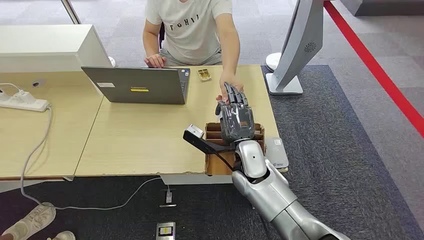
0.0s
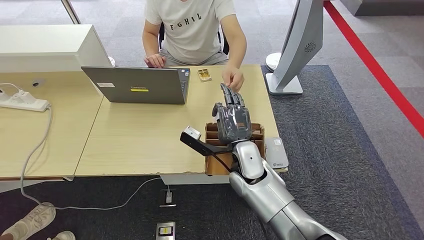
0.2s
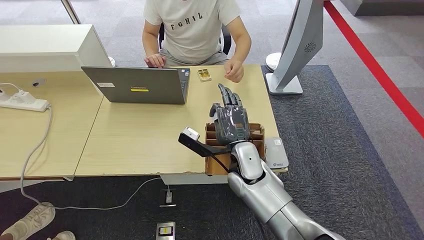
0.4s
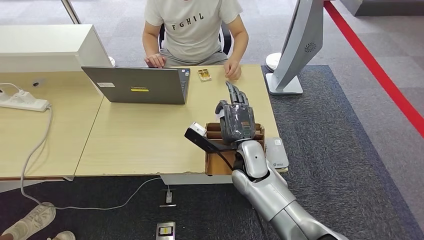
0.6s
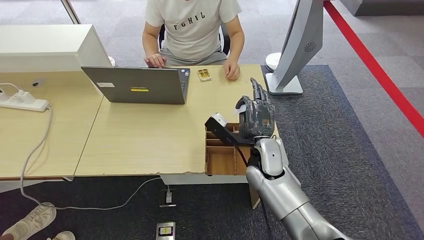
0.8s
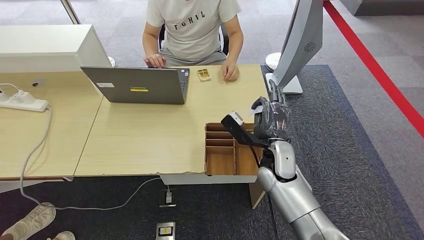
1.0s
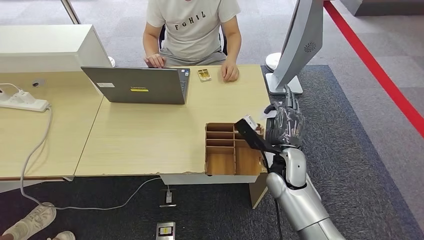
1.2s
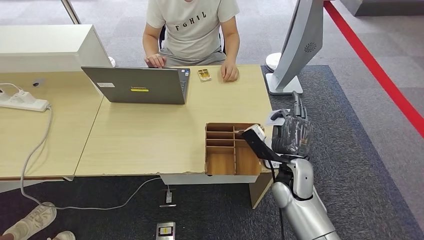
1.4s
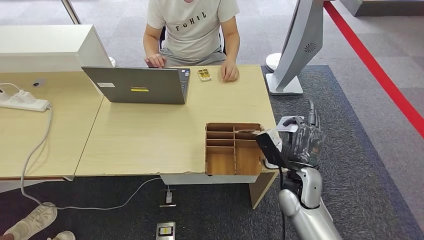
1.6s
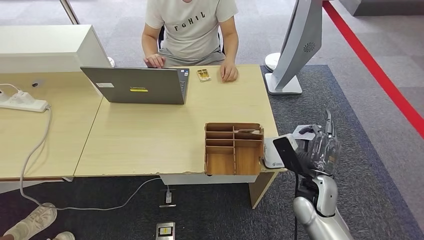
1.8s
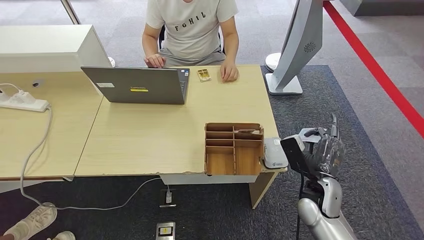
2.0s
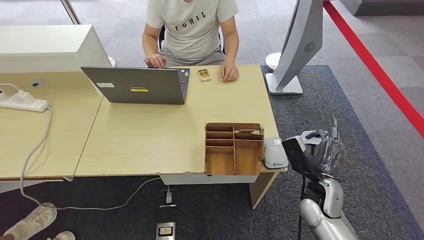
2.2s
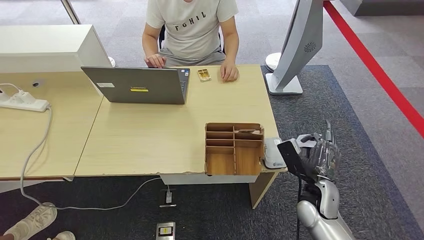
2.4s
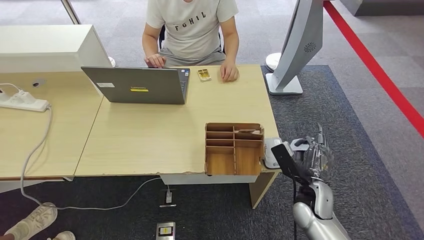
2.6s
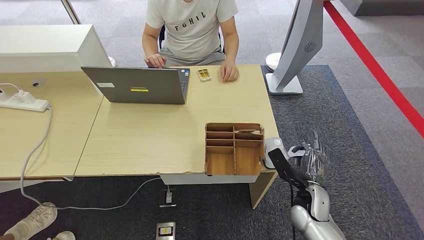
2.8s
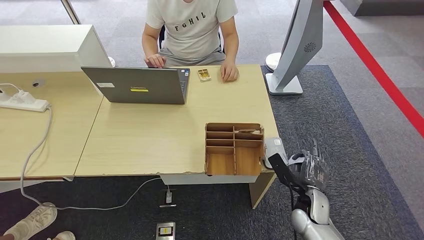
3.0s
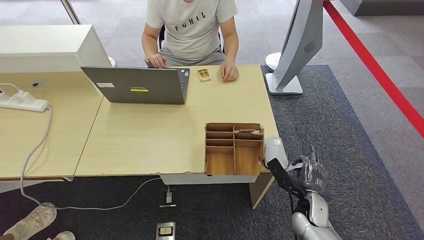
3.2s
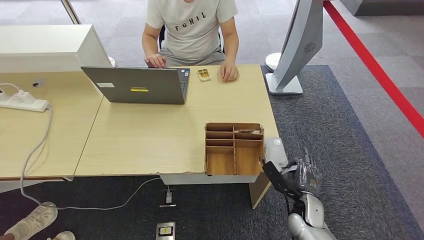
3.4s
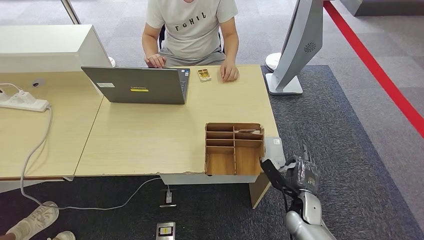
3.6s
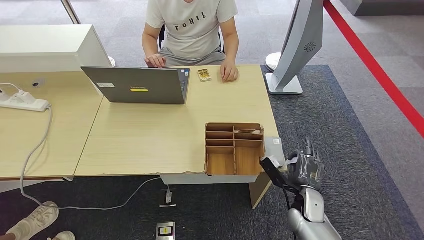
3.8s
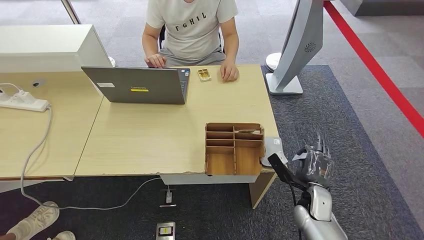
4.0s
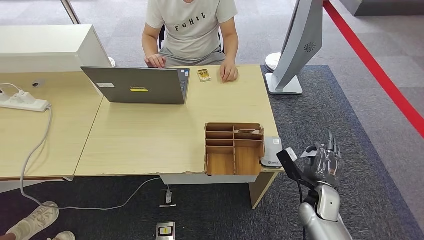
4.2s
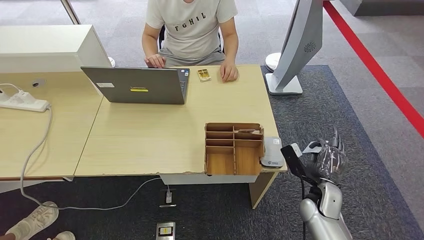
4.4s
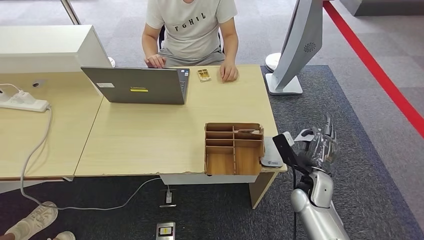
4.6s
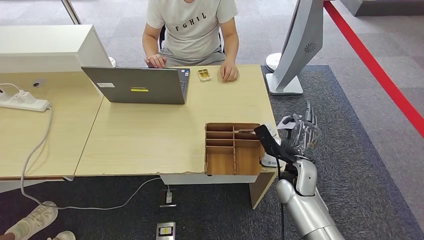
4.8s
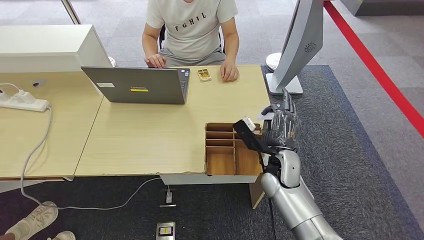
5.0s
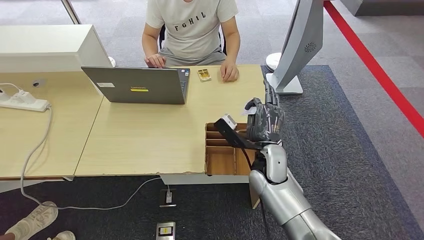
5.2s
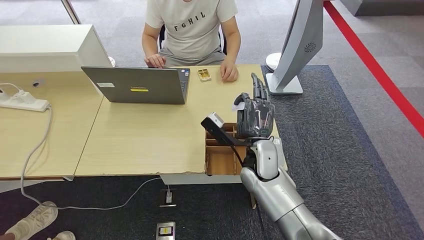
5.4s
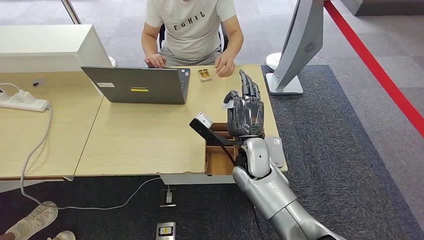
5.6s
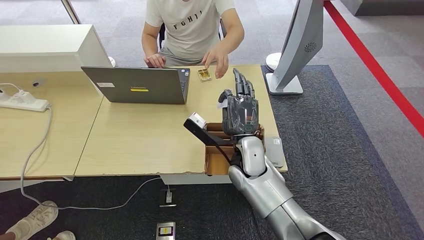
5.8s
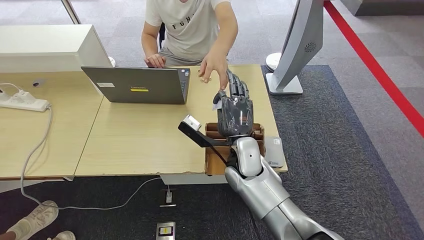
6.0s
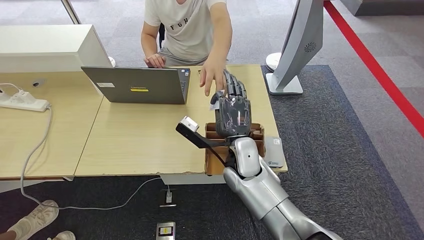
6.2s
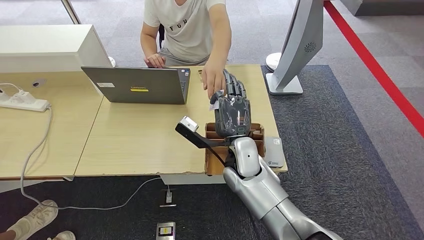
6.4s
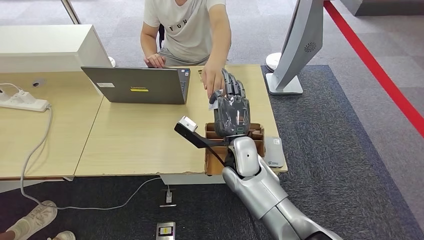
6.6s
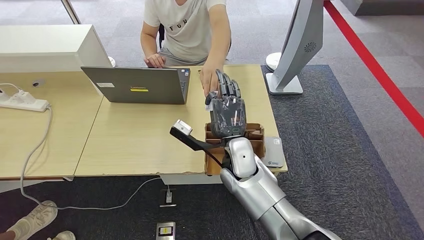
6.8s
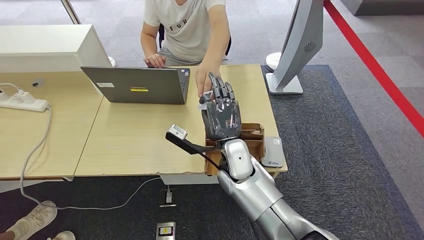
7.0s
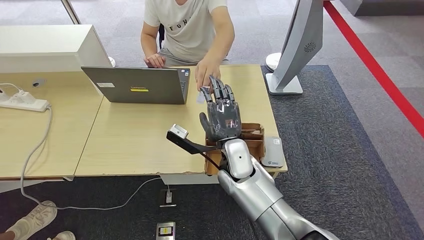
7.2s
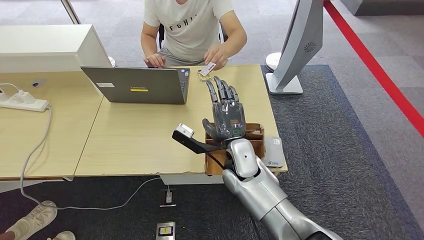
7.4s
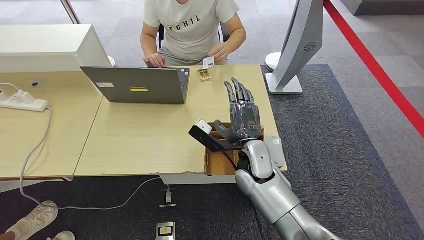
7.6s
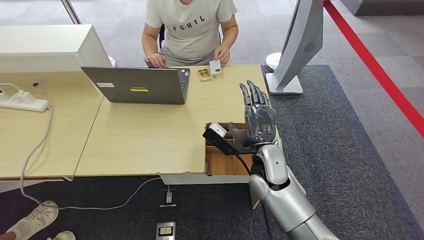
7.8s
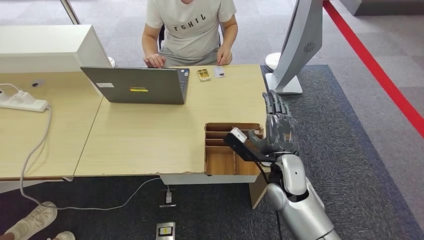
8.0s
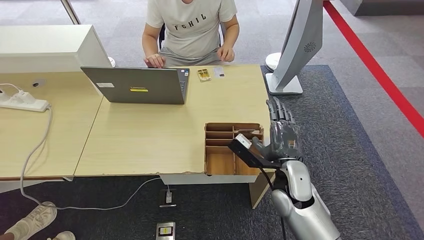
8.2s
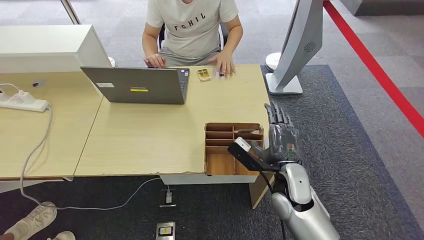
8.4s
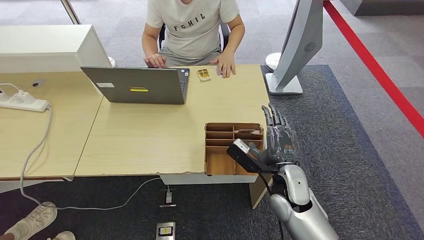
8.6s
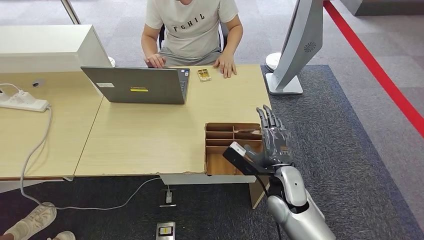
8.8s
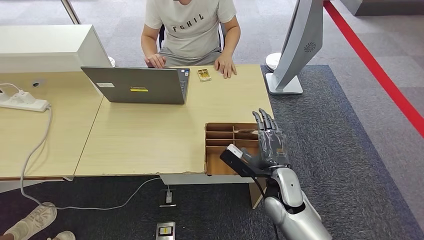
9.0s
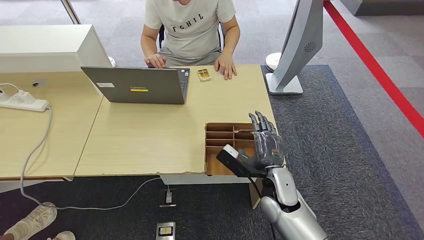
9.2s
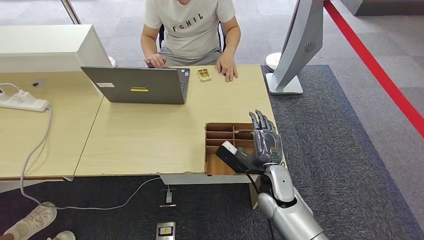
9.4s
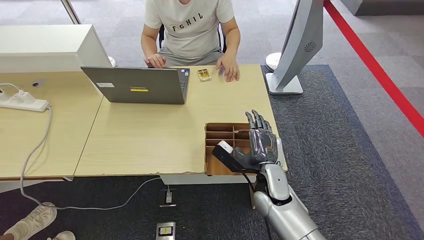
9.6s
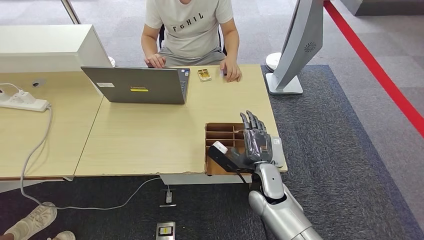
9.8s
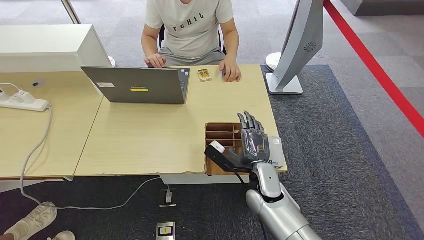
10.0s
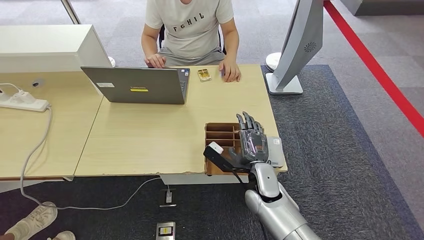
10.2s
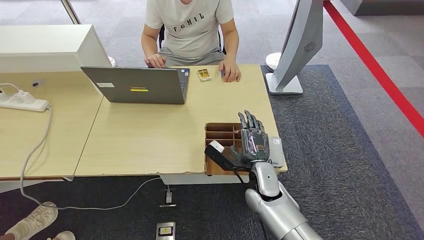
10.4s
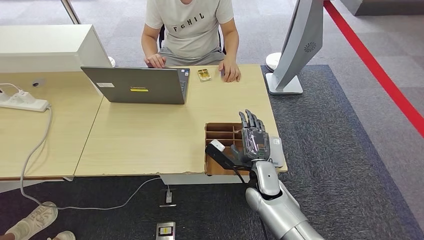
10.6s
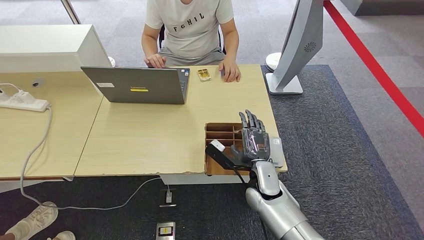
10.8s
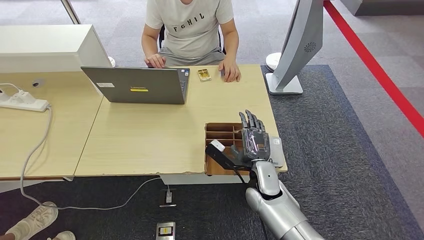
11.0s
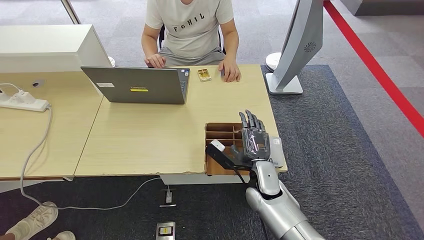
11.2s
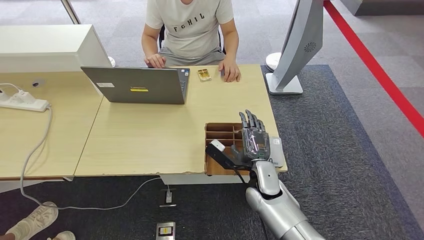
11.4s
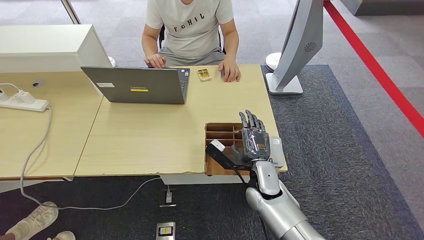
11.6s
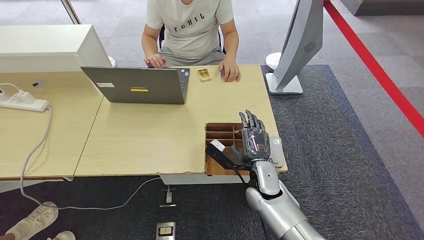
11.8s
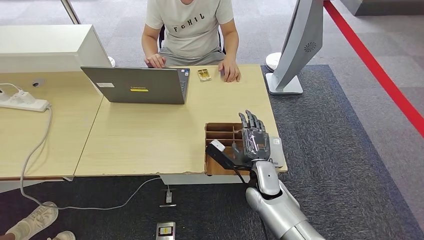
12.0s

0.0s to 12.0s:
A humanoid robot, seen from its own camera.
Step, 0.0s to 1.2s: Take the ID card from the person's hand.
Step, 1.4s to 5.8s: Place the ID card on the card reader.
Step, 6.0s to 8.0s: Hand the ID card to the person.
1.6s to 3.0s: The right hand heads downward and to the right, covering approximately 10 cm.
3.0s to 4.4s: The hands move only a little.
4.4s to 6.0s: The right hand is displaced to the left and upward by roughly 25 cm.
6.0s to 7.6s: There are only small adjustments of the hands.
7.6s to 9.0s: The right hand shifts about 10 cm to the right and backward.
9.0s to 10.4s: The right hand changes place by roughly 5 cm.
10.4s to 12.0s: Both hands stay put.

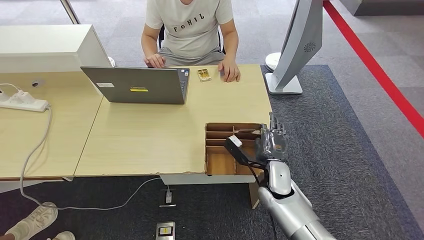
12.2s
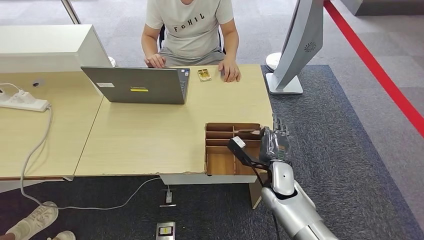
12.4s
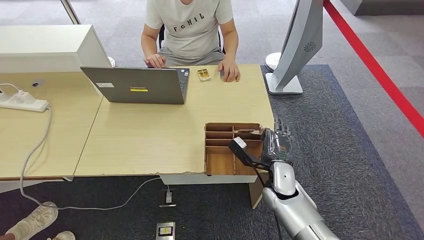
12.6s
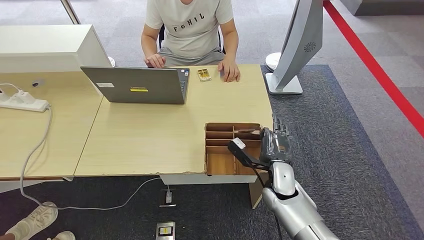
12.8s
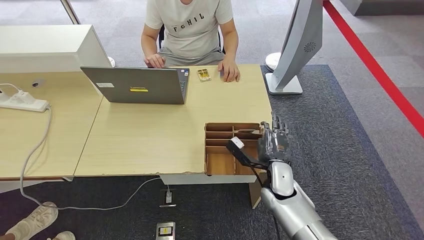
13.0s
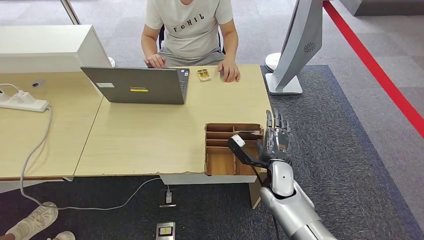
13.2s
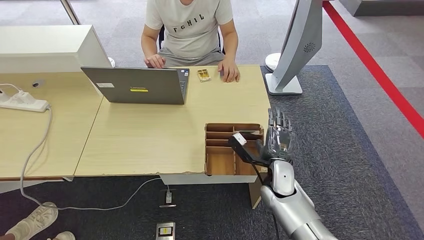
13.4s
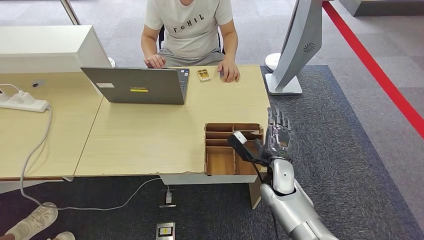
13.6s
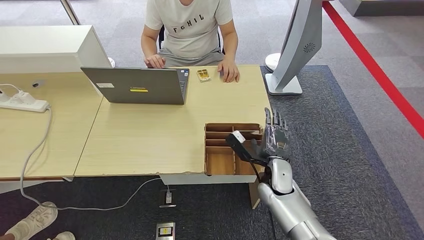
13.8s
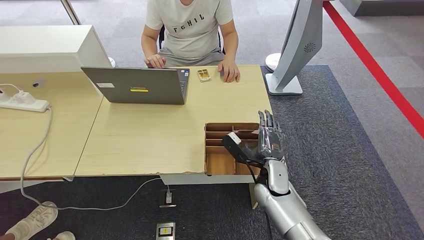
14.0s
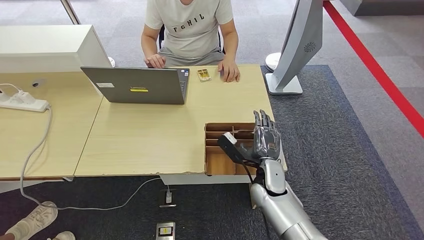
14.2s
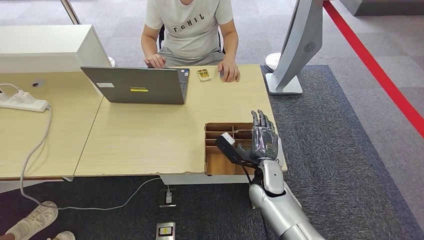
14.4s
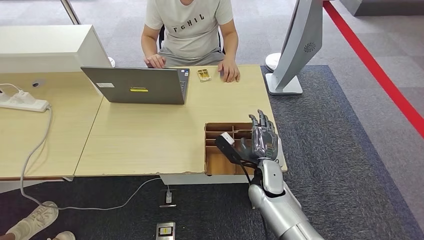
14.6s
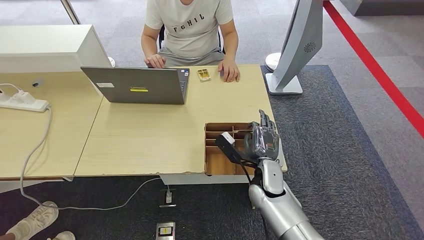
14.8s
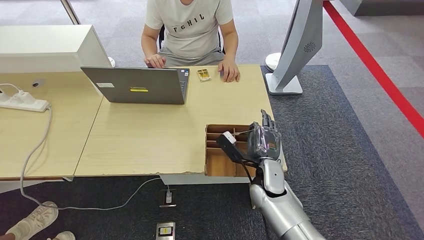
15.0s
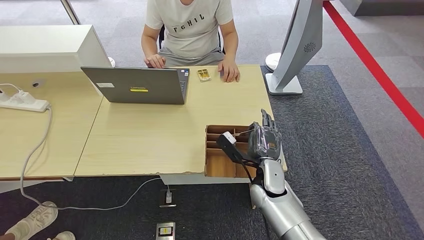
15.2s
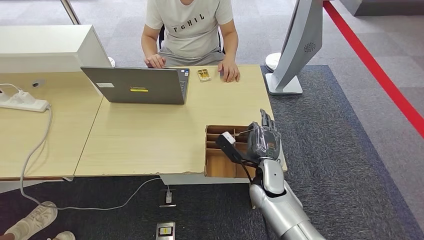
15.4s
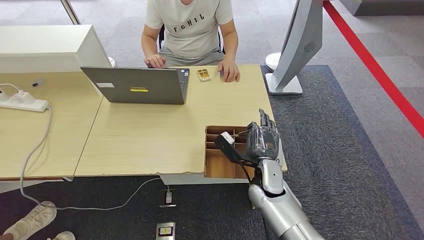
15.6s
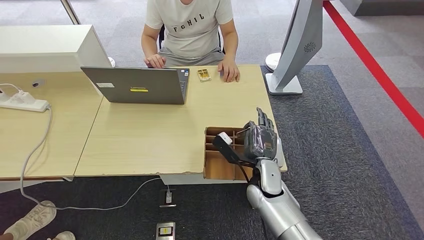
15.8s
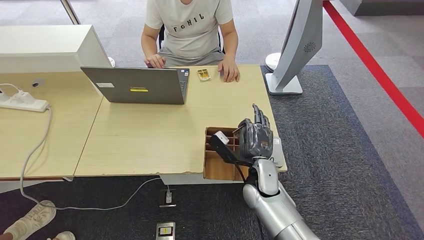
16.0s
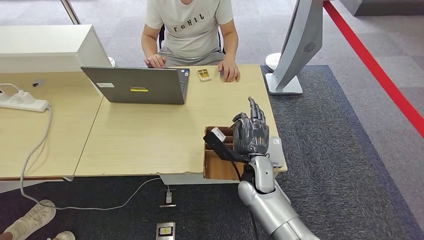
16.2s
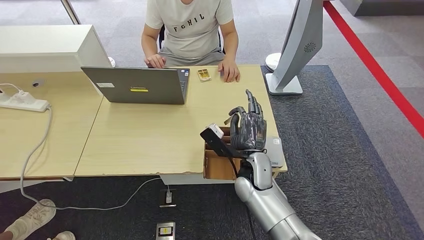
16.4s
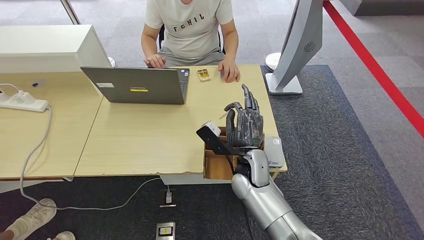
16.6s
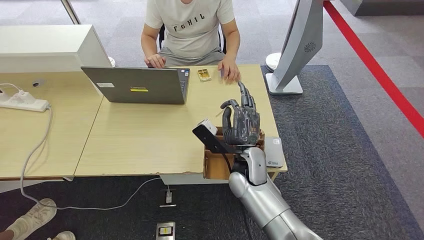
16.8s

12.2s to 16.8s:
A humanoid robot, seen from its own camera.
12.2s to 15.2s: The hands make only small movements.
15.2s to 16.8s: The right hand moves to the left and upward, roughly 10 cm.
